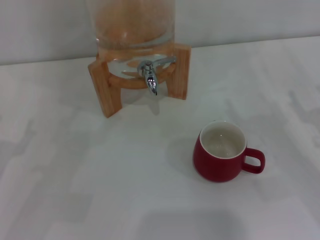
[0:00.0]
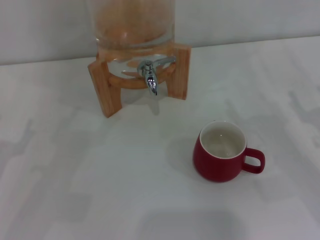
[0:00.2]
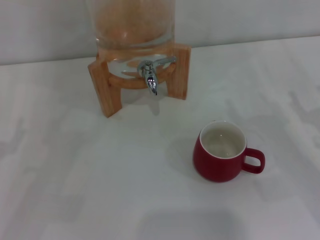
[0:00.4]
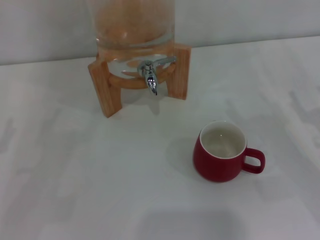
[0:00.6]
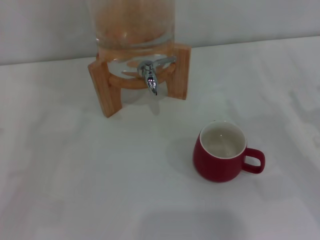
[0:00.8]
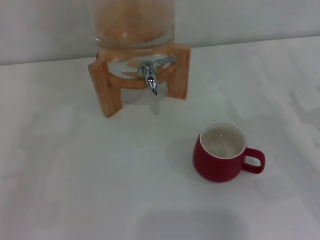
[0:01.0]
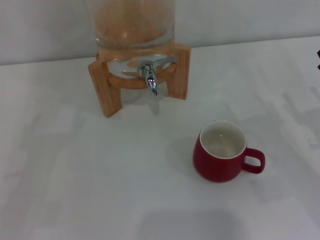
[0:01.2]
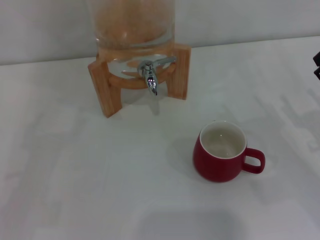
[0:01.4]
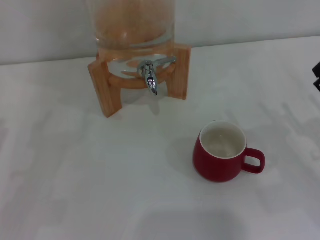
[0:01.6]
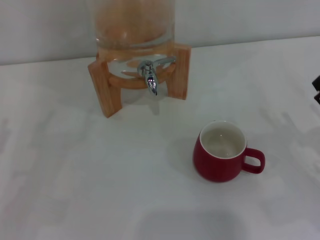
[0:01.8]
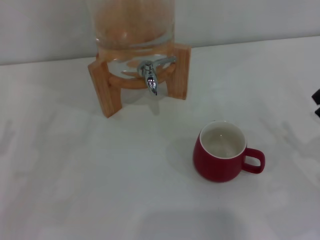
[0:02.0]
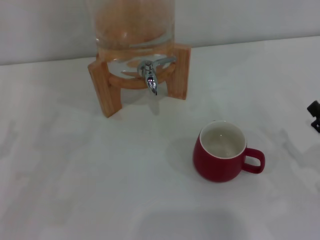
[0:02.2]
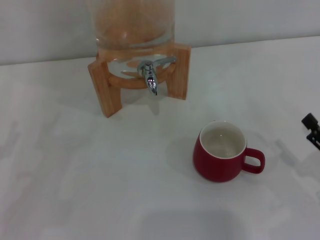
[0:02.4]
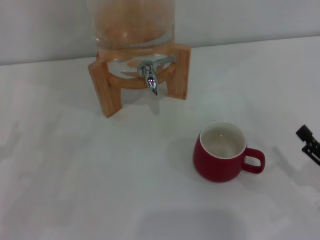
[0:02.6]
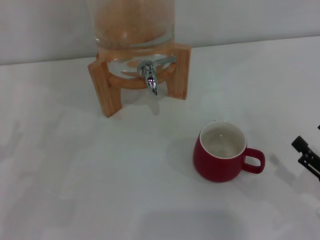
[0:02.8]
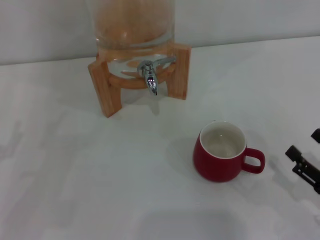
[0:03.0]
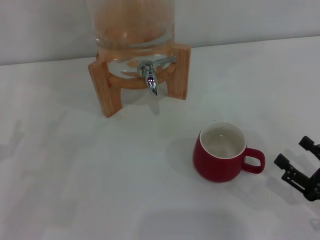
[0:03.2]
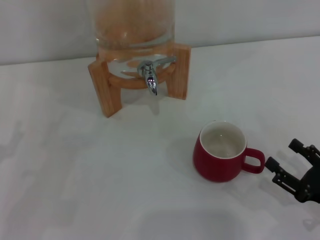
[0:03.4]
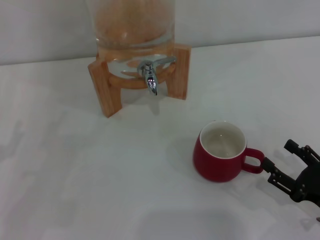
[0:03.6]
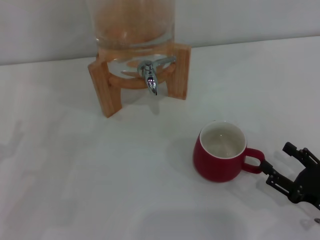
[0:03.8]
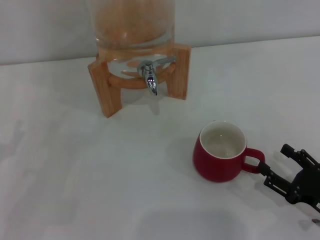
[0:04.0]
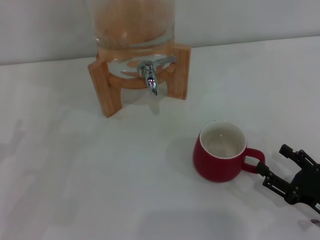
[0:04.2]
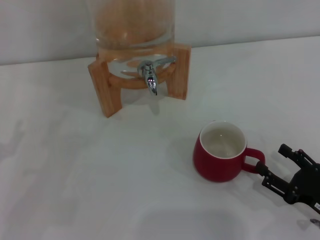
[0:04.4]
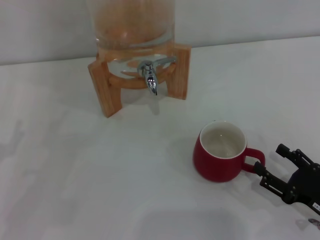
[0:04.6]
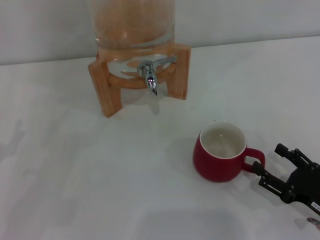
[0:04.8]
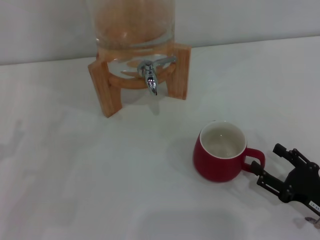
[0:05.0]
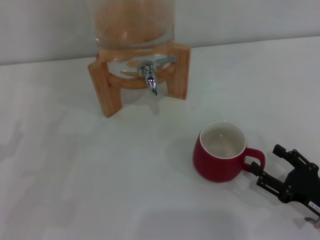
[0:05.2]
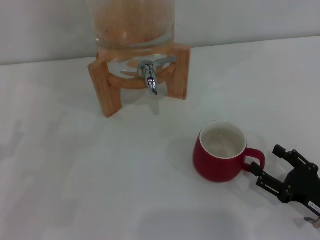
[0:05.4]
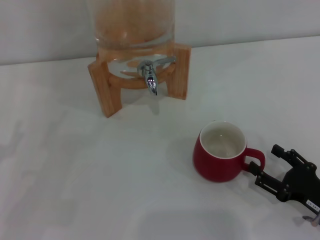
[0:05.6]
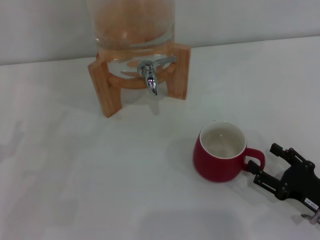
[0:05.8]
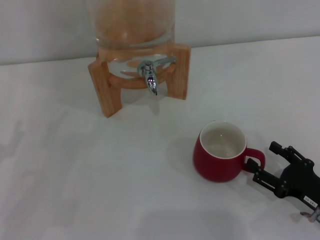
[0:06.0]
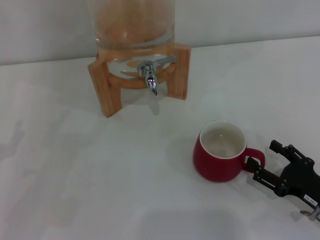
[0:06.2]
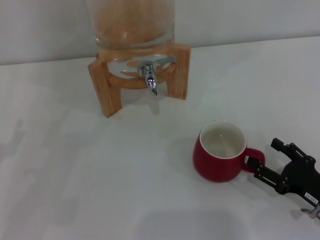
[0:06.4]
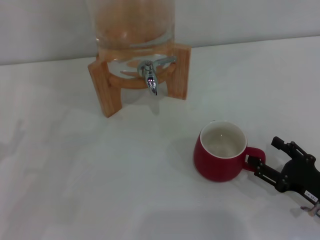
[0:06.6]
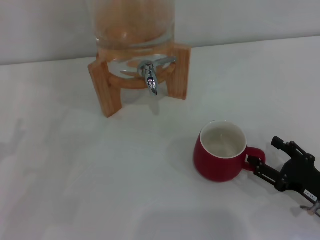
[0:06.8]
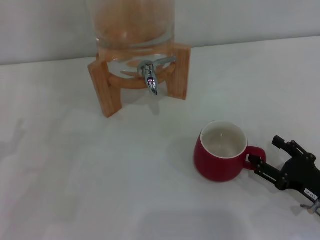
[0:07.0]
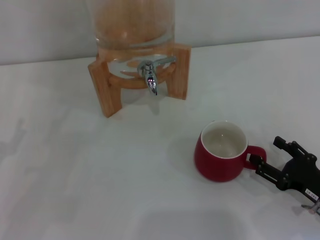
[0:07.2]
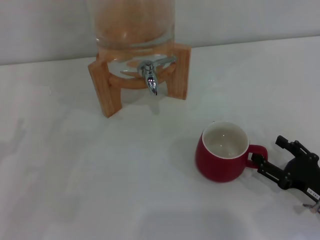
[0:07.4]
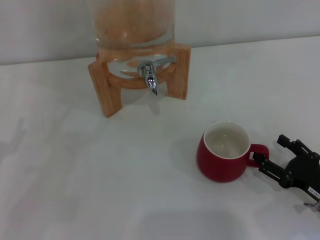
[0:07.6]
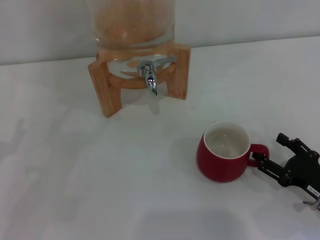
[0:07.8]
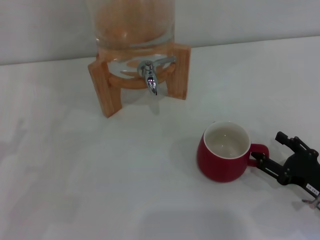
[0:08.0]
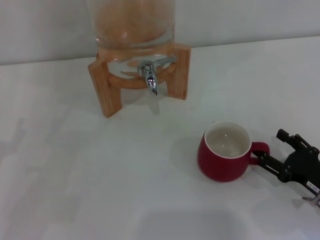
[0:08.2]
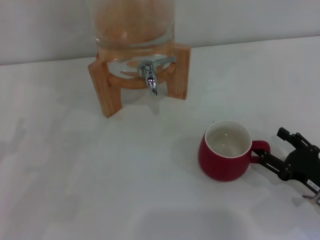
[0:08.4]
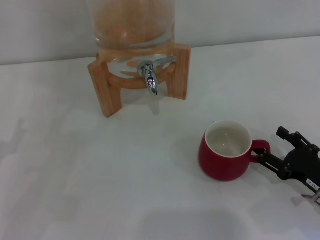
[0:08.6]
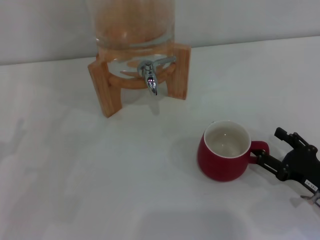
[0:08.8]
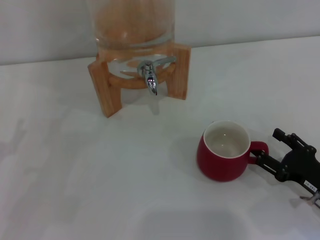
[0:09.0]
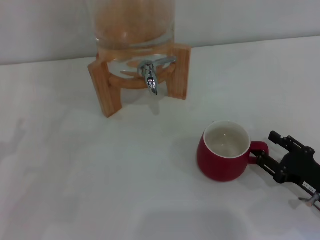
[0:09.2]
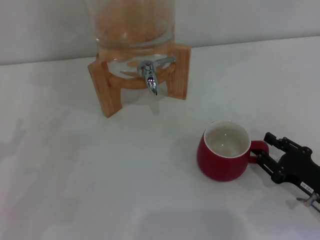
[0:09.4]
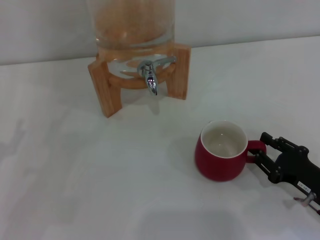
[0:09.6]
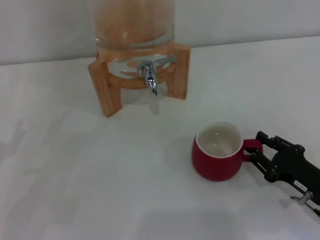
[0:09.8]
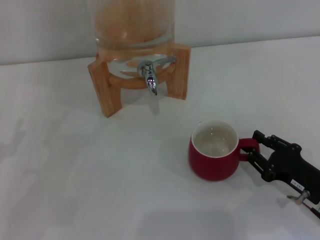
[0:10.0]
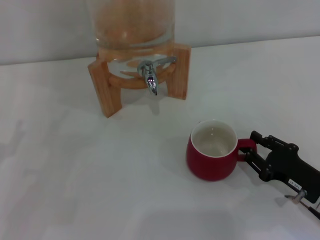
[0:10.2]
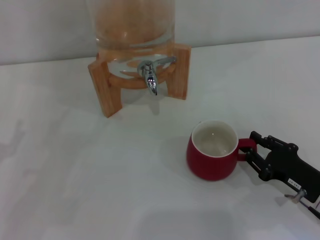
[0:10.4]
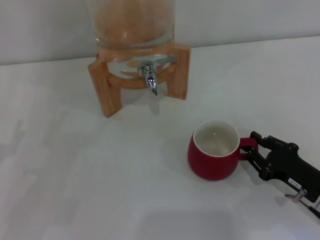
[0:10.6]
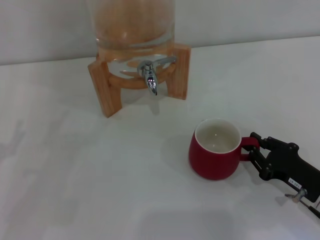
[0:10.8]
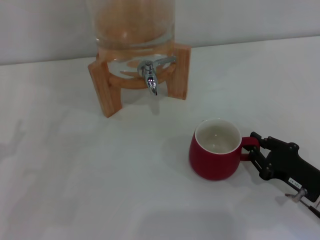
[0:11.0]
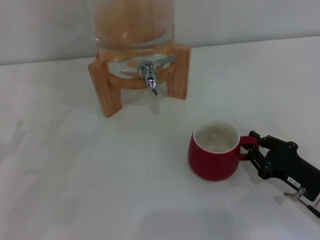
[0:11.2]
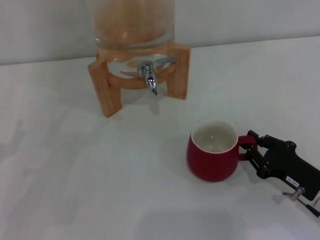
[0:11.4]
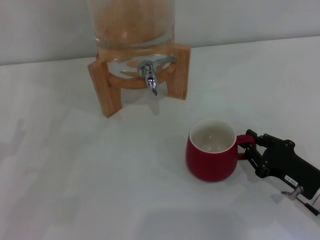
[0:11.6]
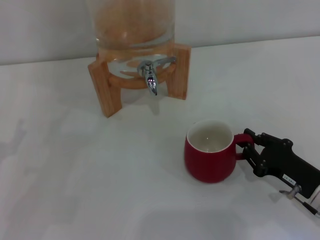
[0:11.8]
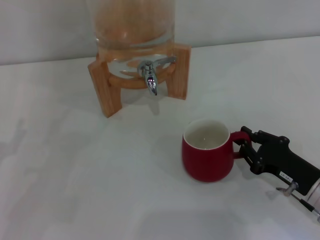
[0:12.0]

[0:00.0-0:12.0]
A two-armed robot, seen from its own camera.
Task of the whole recording: the right gripper pick up the red cup and place it horizontally under the faucet, the left gripper turn on the faucet to fill the cup, and then turn off the faucet.
0:01.6 to 0:03.0: The right gripper moves backward, approximately 10 cm.
0:03.0 to 0:06.0: The grippers make only small movements.
0:06.0 to 0:07.6: Both grippers stay put.
0:07.6 to 0:09.0: The two grippers keep their place.
0:09.0 to 0:10.4: The right gripper closes its fingers.
0:10.4 to 0:12.0: The grippers make only small movements.

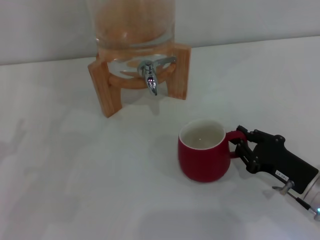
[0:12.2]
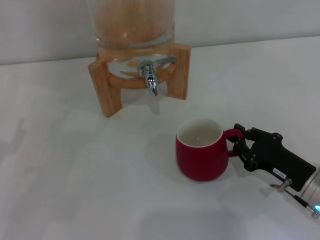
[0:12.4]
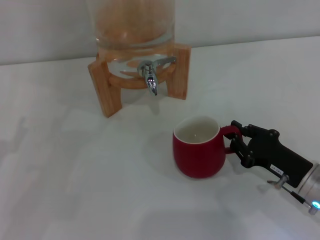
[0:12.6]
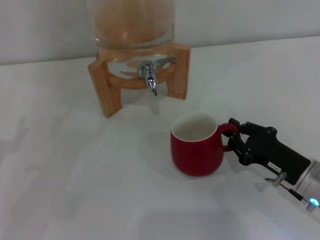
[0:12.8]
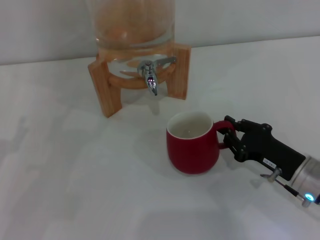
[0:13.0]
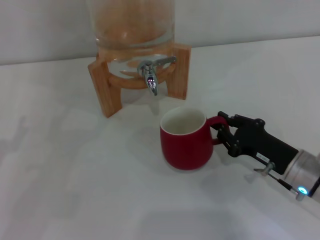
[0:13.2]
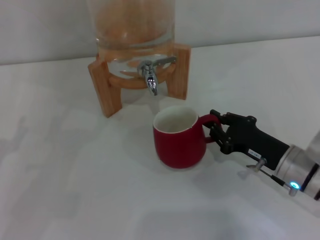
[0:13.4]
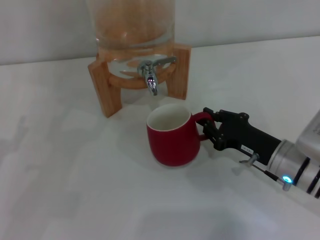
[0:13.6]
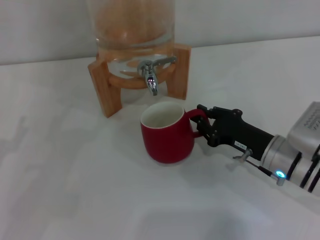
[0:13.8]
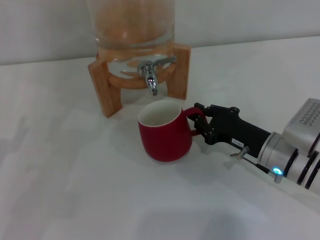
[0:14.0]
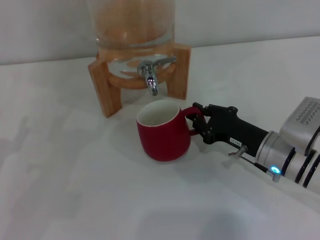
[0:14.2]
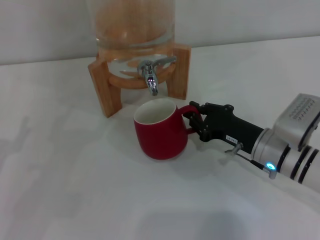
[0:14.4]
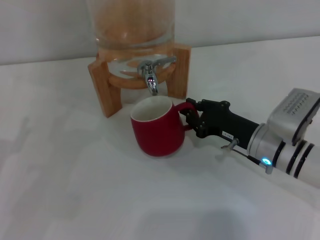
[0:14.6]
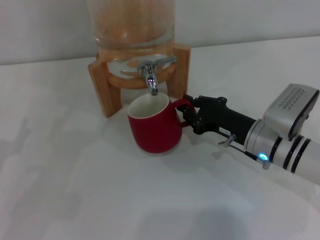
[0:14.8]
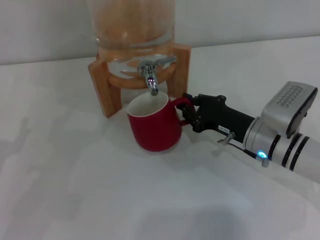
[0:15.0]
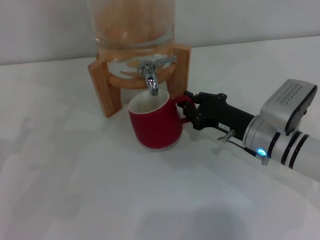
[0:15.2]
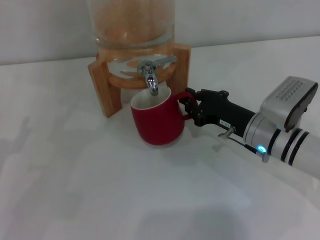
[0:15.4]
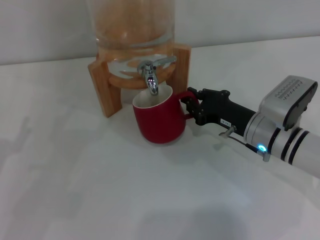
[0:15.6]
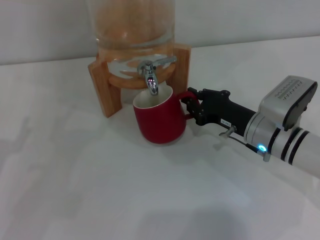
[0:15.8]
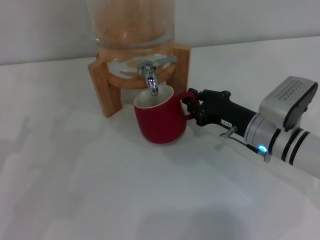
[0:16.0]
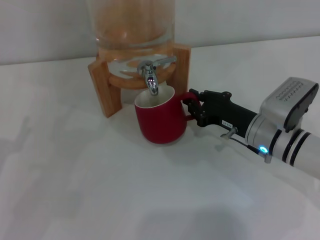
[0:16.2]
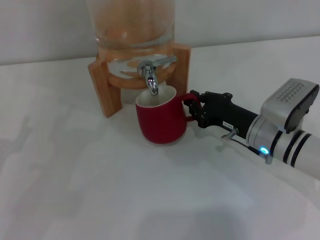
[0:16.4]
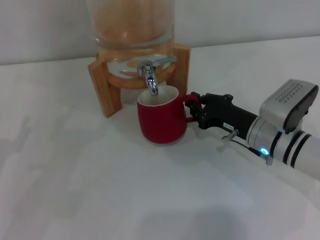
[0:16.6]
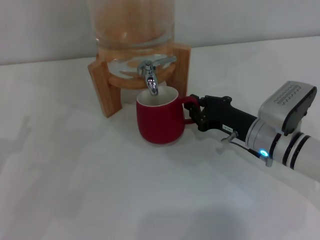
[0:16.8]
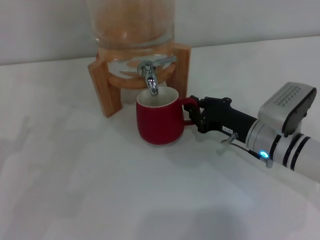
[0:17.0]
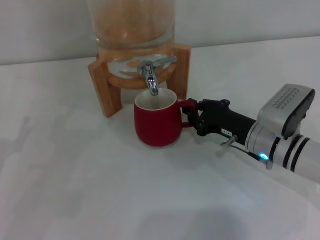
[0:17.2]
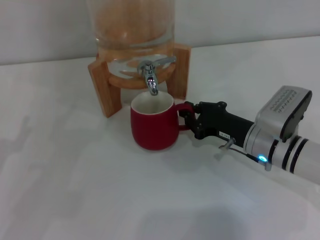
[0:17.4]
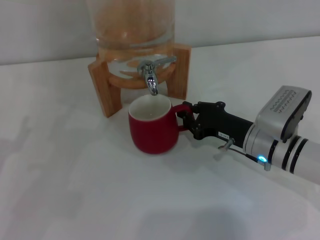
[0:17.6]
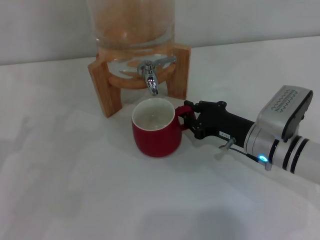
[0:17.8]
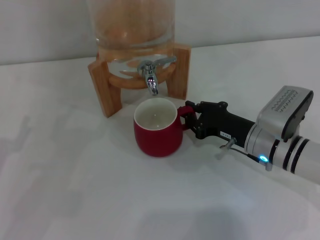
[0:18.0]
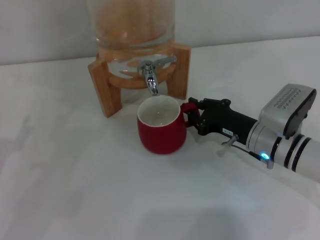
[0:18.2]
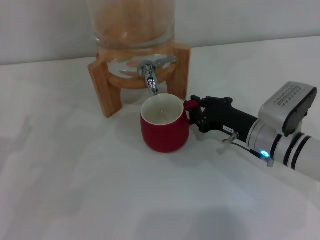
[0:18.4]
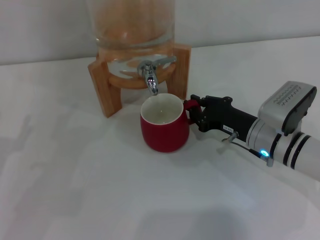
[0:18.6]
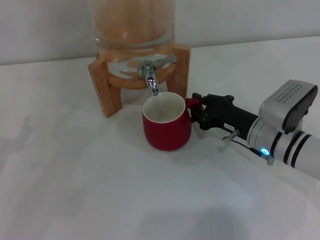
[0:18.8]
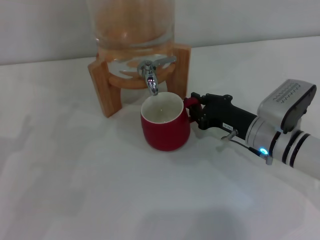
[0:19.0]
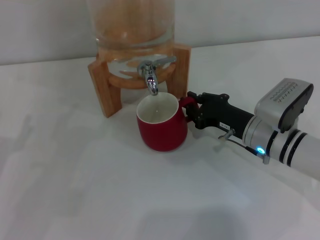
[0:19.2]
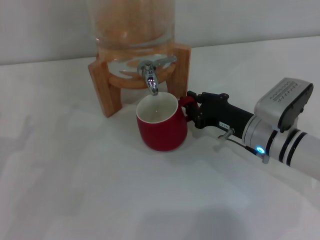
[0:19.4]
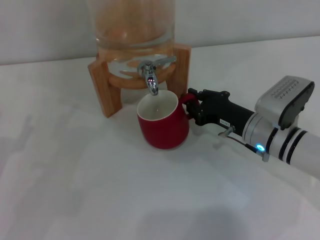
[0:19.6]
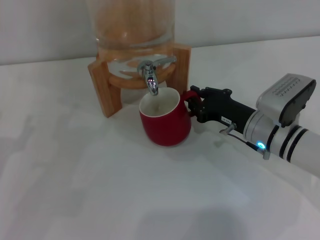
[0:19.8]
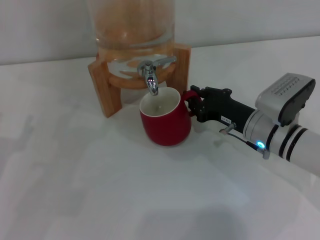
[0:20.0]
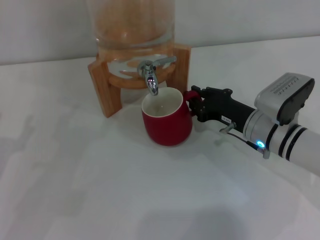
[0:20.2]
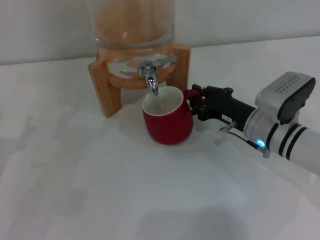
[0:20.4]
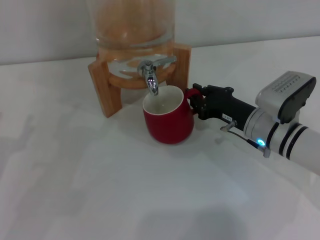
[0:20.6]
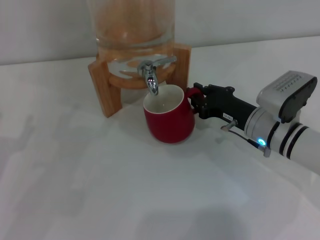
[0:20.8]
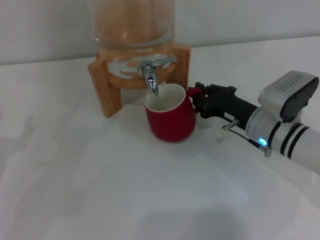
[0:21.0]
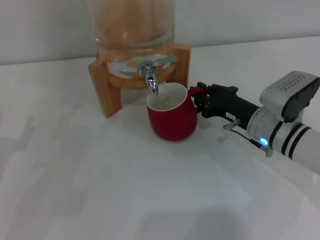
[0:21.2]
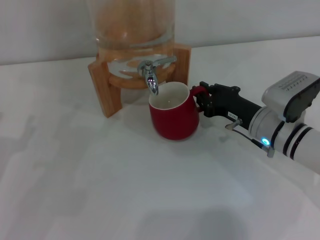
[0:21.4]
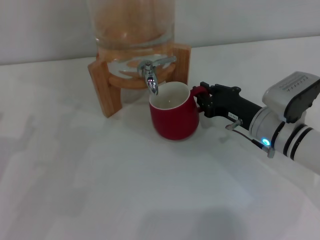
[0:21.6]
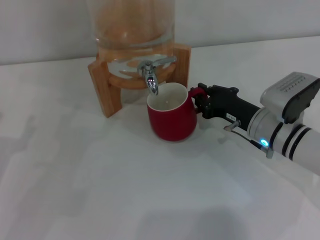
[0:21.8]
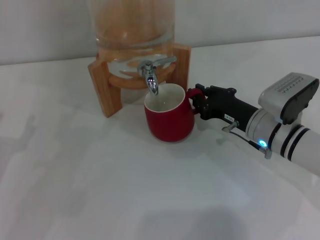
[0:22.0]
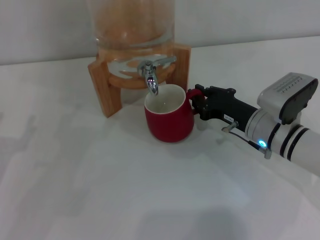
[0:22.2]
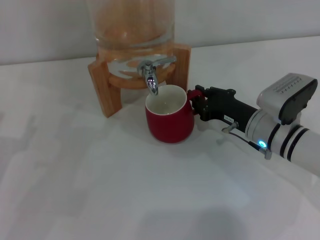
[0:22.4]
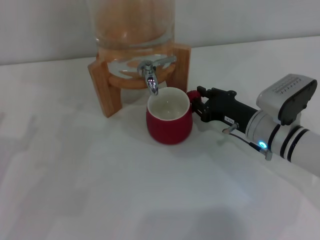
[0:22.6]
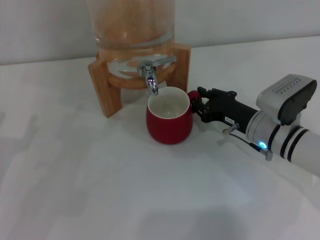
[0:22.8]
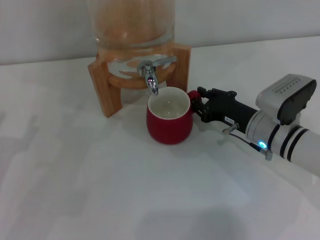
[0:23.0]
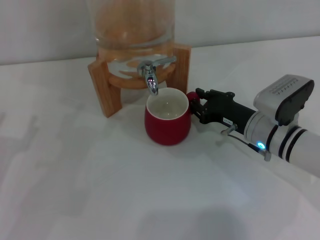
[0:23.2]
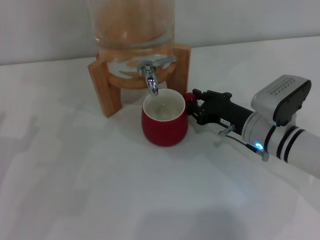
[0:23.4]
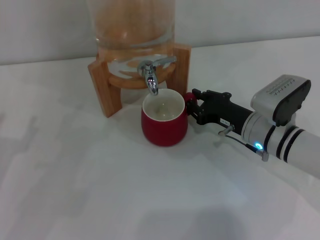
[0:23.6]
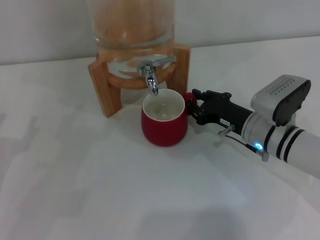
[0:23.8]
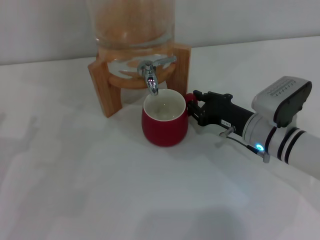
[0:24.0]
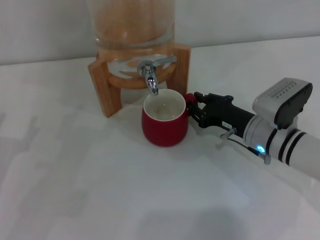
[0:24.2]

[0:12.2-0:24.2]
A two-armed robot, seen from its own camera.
Task of the whole recording: the right gripper pick up the red cup and place it horizontally under the faucet, the left gripper turn on the faucet to fill the cup, and then turn off the faucet.
0:12.2 to 0:13.8: The right gripper shifts about 5 cm forward.
0:13.8 to 0:15.2: The grippers stay close to where they were, moving slightly.
0:15.2 to 0:16.6: Both grippers stay put.
0:16.6 to 0:18.2: The grippers make only small movements.
0:18.2 to 0:19.8: Both grippers stay put.
0:19.8 to 0:24.2: The two grippers keep their place.
